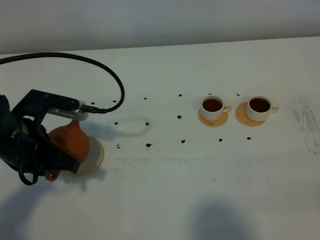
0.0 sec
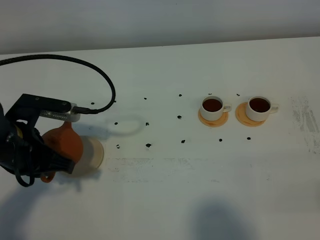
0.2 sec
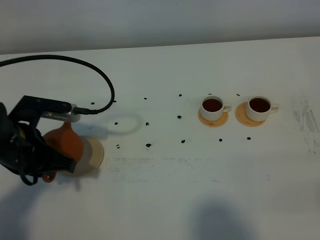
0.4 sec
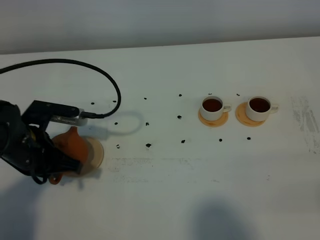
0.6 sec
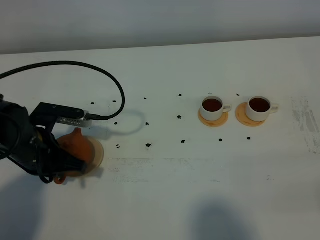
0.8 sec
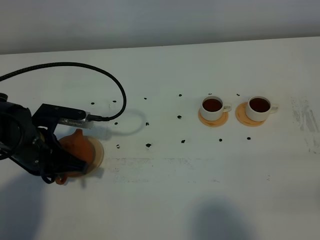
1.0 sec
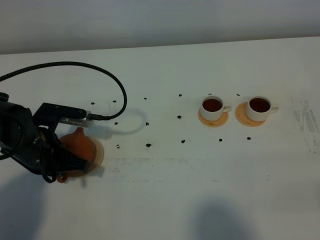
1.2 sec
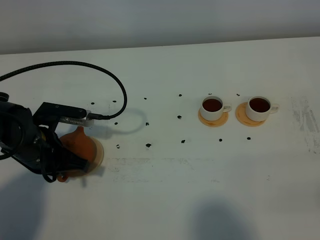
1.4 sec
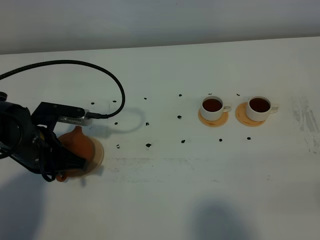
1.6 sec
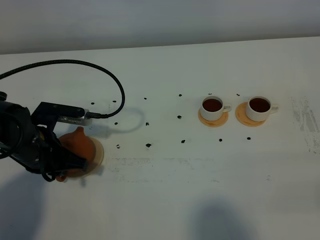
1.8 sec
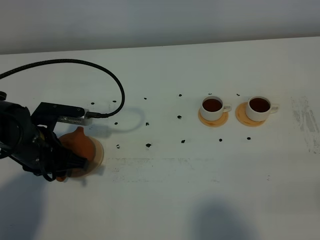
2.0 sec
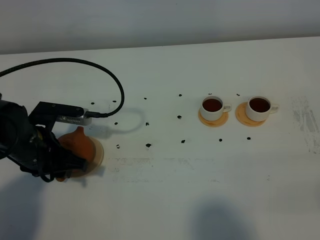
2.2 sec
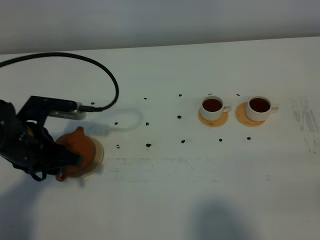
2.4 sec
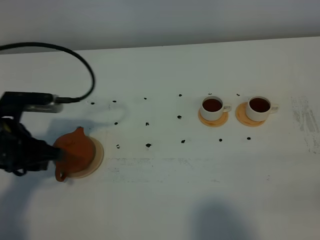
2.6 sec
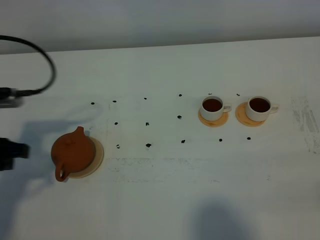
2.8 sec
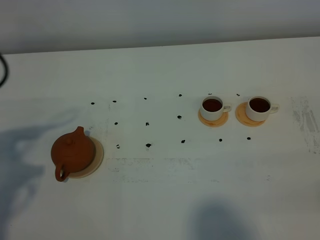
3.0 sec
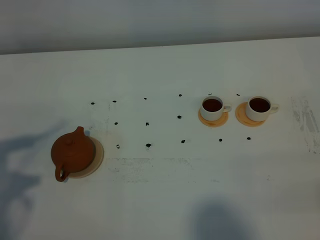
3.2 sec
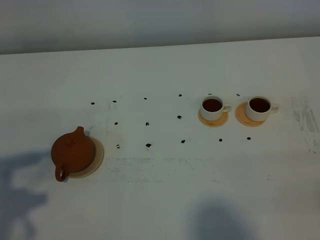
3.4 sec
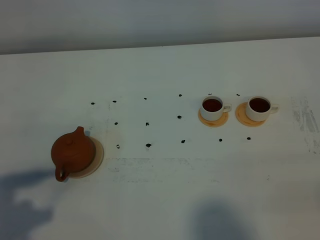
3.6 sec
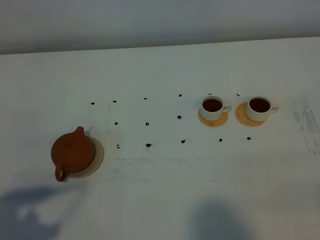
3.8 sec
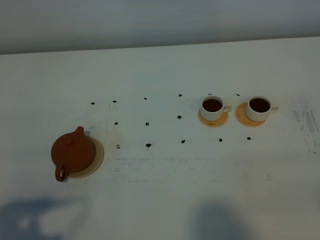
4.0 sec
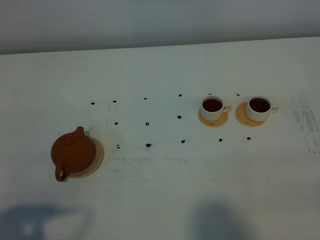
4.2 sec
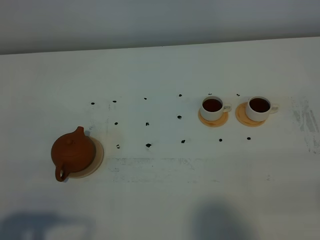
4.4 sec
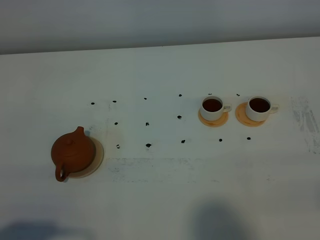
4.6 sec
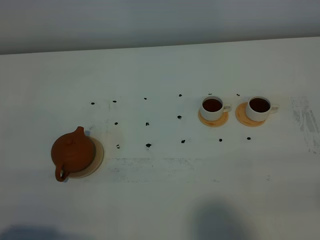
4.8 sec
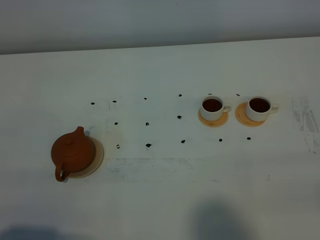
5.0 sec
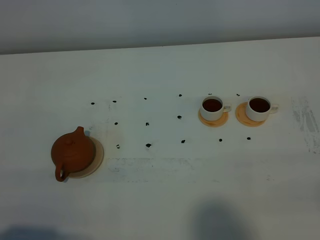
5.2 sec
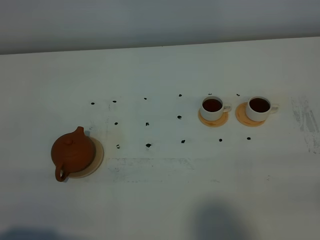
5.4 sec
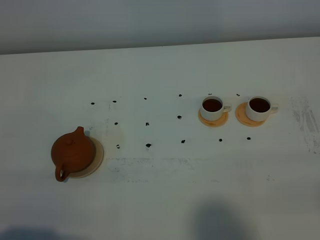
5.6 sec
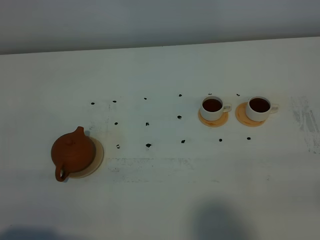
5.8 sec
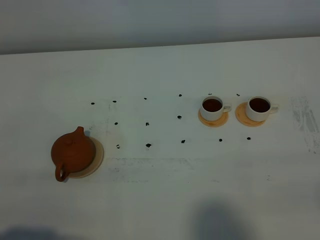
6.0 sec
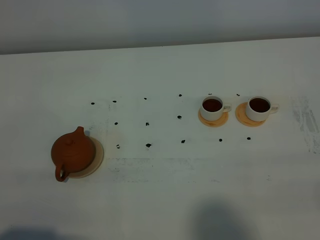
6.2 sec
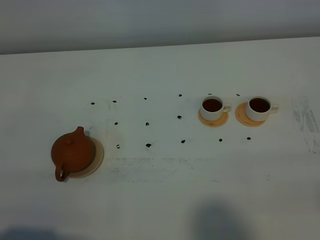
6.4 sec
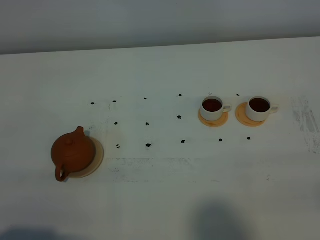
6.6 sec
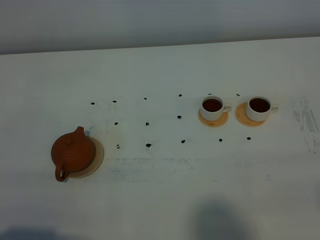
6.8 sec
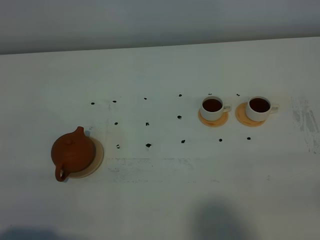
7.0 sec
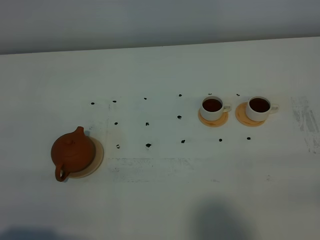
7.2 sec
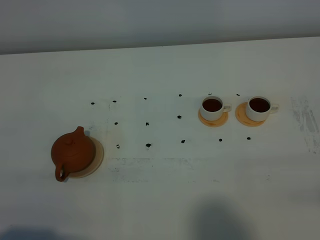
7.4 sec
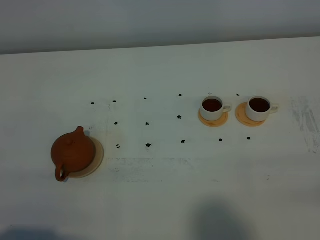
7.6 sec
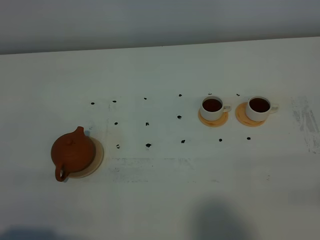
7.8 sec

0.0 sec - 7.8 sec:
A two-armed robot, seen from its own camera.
Task of the whole recording: grasp the brown teapot and pour the tea into the two white teacups one by one, put the brown teapot back in its original place.
0.0 sec - 1.6 sec: The left gripper is displaced downward by some 5 cm.
1.6 sec - 3.2 sec: The left gripper heads upward, backward and to the left, covering about 20 cm, and opens.
3.2 sec - 4.6 sec: The left gripper goes some 15 cm backward.
4.6 sec - 6.2 sec: Neither gripper changes place.

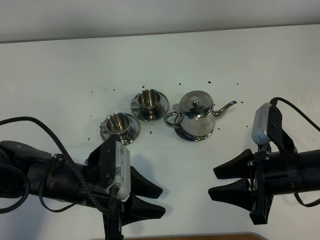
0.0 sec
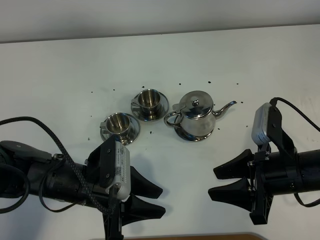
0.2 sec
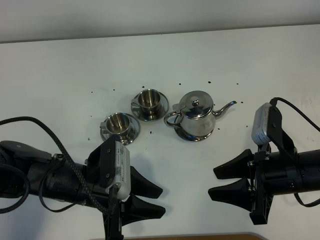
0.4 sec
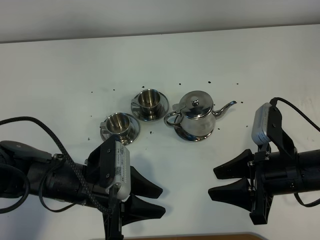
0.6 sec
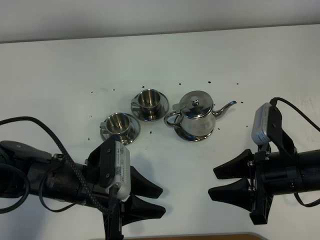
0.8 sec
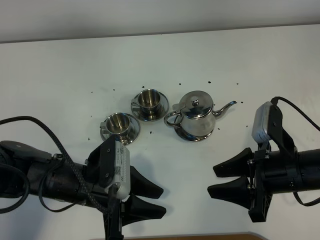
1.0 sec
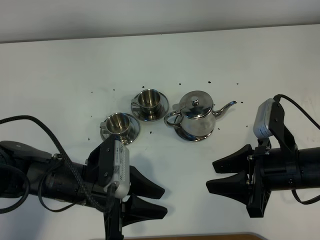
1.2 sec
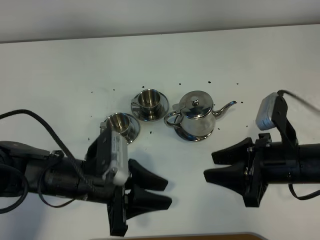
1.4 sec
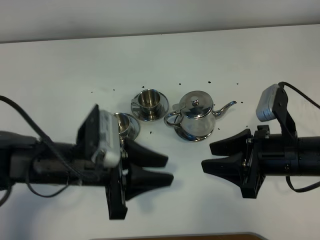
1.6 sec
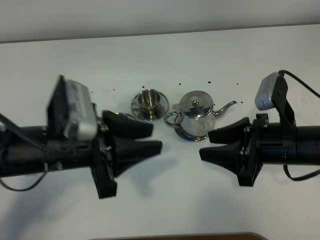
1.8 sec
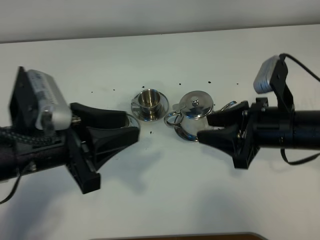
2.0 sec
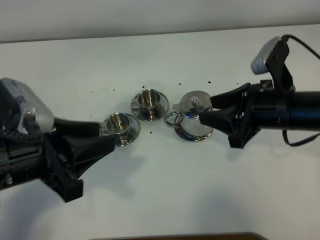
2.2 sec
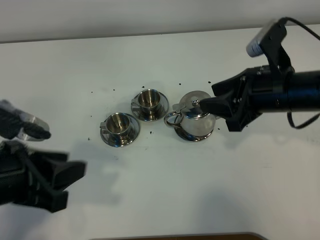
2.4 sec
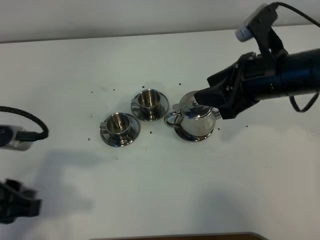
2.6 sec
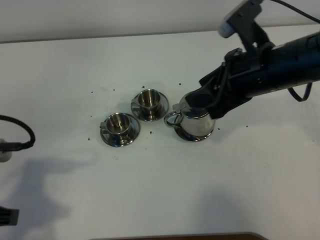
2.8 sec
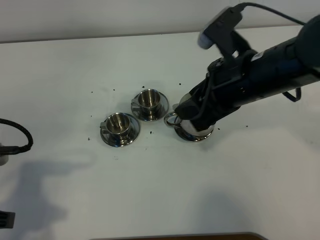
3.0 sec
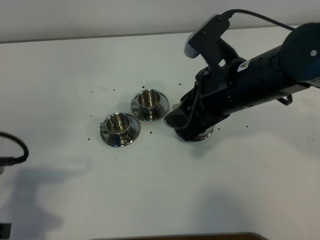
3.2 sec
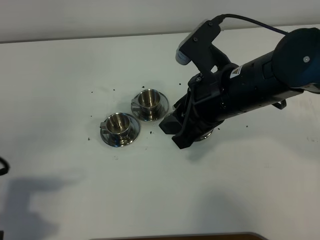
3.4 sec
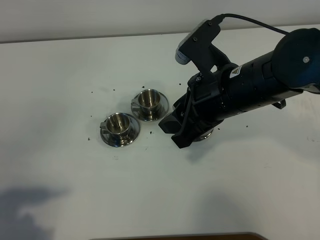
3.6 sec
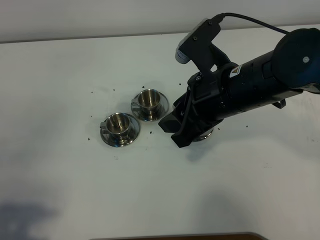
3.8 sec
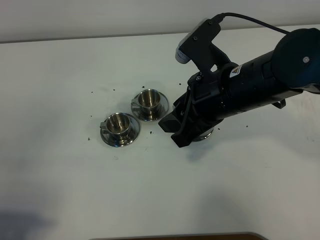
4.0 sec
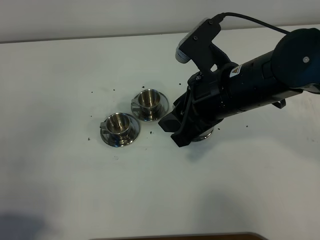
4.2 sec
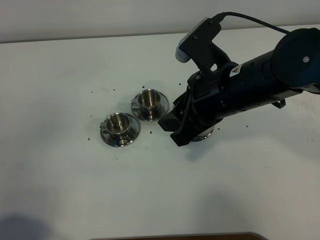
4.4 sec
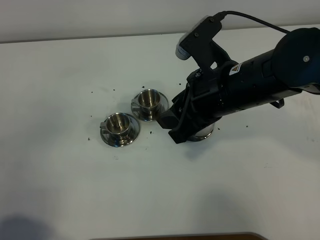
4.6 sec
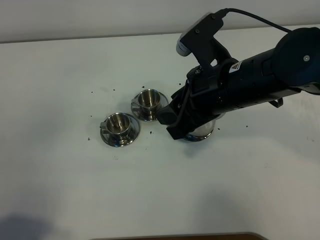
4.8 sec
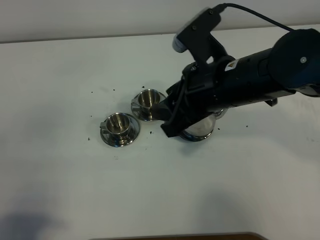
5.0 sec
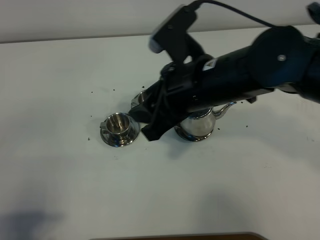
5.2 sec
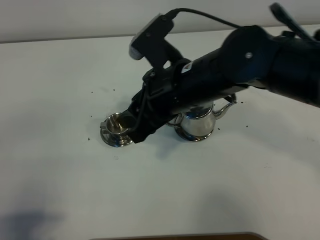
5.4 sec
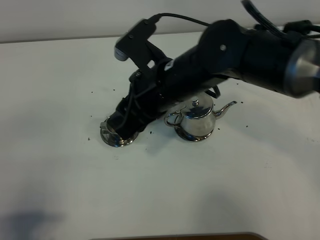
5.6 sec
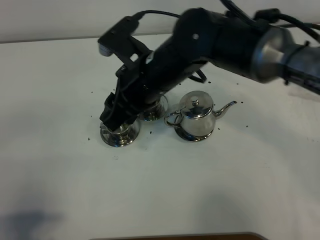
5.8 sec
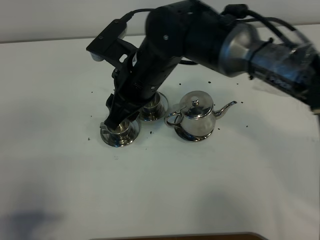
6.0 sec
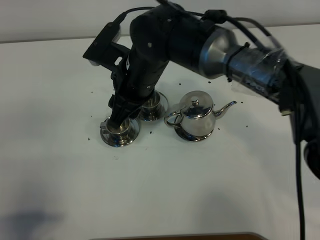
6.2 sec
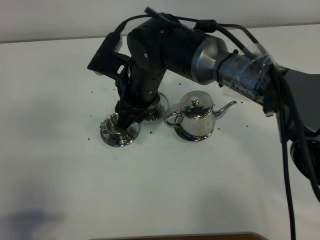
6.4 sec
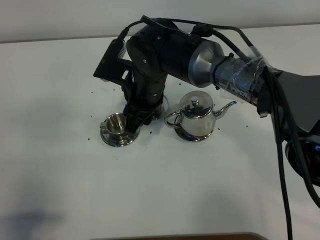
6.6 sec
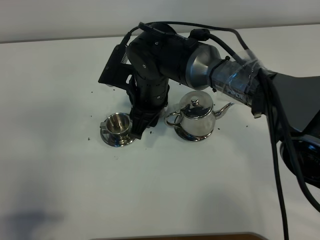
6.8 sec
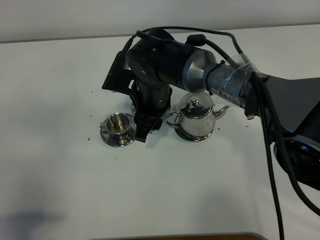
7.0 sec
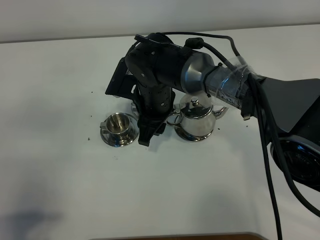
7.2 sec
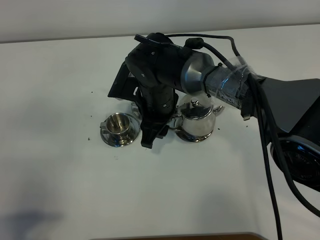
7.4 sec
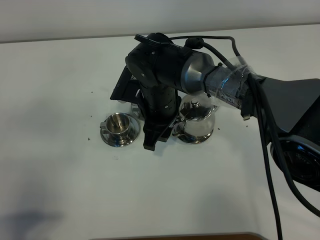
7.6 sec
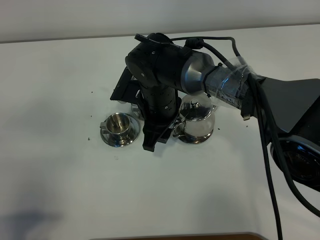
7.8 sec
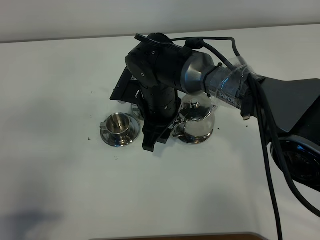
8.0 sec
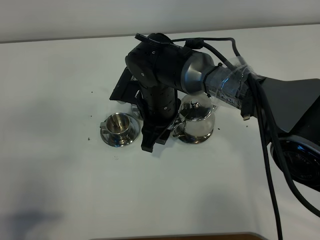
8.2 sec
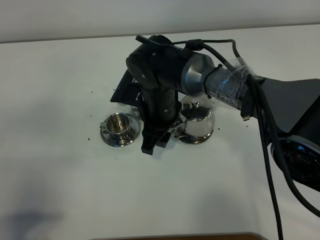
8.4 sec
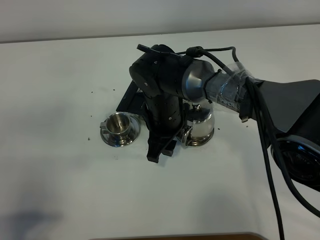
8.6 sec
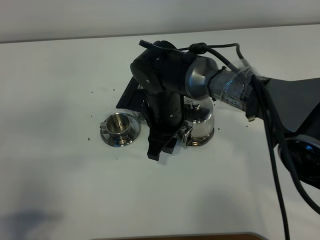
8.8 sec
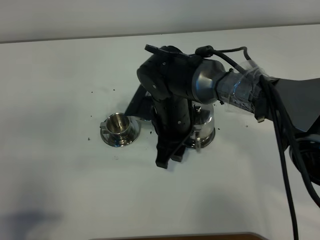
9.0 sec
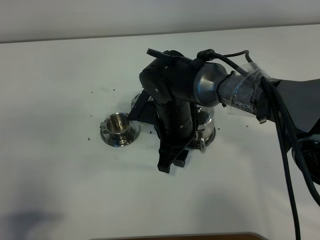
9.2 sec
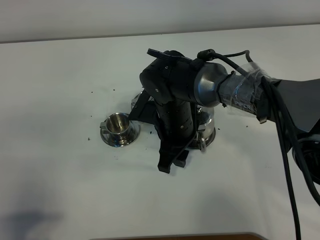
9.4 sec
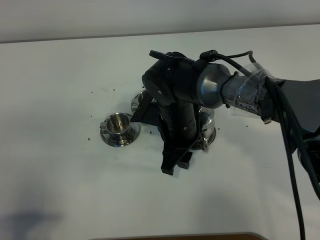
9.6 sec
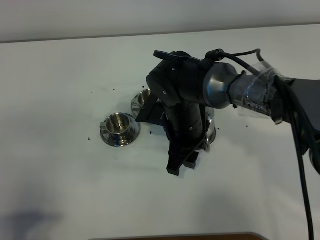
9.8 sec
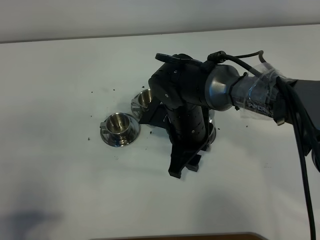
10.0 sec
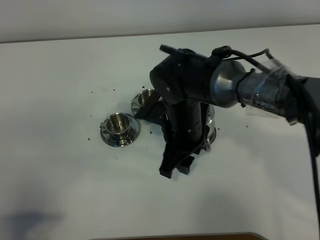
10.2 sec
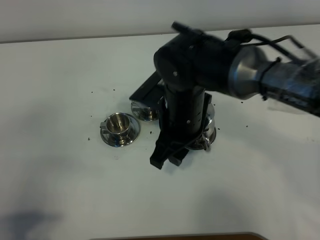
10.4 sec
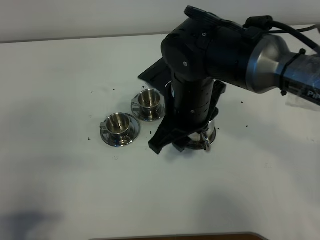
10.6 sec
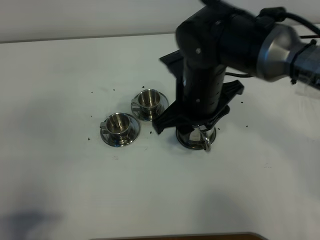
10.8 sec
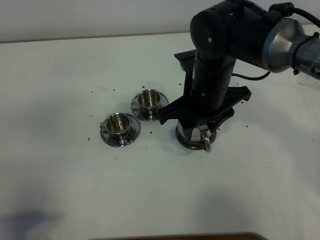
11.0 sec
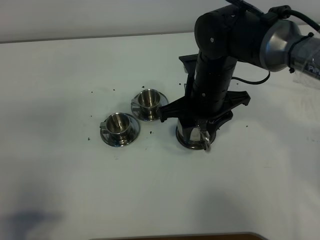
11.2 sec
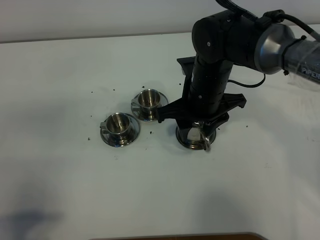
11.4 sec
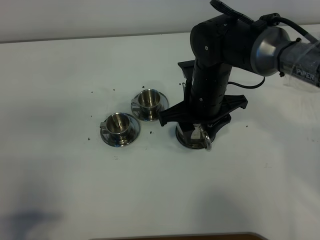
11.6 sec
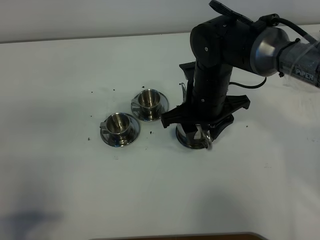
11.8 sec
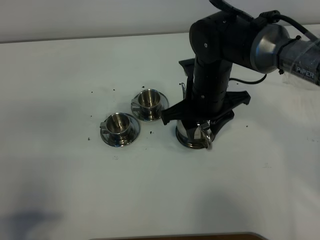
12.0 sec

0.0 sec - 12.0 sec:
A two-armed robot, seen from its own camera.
Task of the whole recording: grasp the stainless steel teapot and pour the tea into the two stainless steel teacups one by one, put the stainless steel teapot back in its original place.
0.0 sec - 1.6 sec: The left gripper travels upward by some 5 cm.
1.6 sec - 3.0 sec: The right gripper is displaced upward, to the left and forward by approximately 15 cm. The left gripper shifts roughly 15 cm to the left, backward and upward.
3.0 sec - 4.4 sec: The left gripper shifts about 10 cm backward.
4.4 sec - 6.0 sec: The right gripper goes roughly 15 cm to the left and forward.
6.0 sec - 7.6 sec: The right gripper is displaced downward by roughly 10 cm.
7.6 sec - 9.0 sec: There are only small adjustments of the grippers.
9.0 sec - 10.4 sec: The right gripper moves upward, about 5 cm.
10.4 sec - 12.0 sec: The right gripper travels forward by about 5 cm.

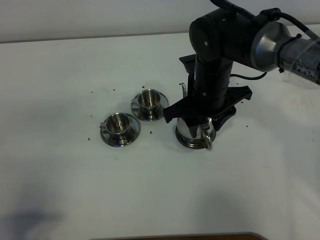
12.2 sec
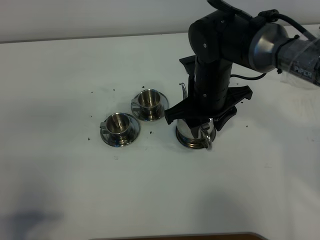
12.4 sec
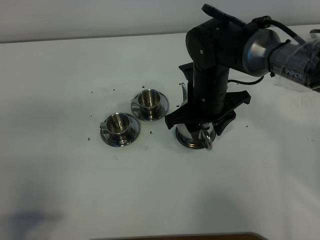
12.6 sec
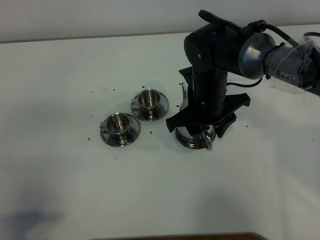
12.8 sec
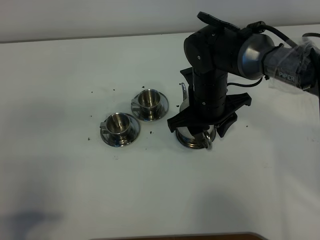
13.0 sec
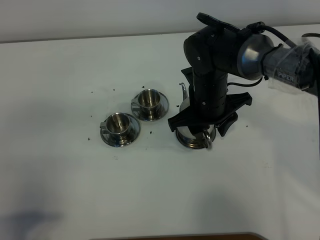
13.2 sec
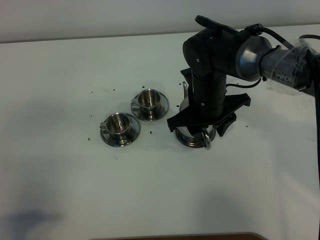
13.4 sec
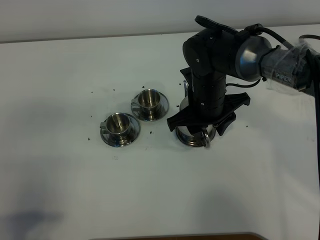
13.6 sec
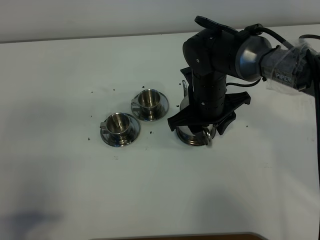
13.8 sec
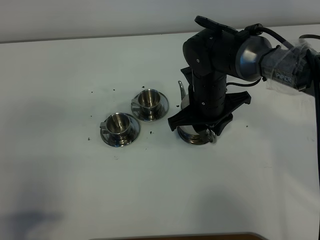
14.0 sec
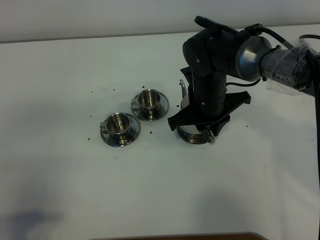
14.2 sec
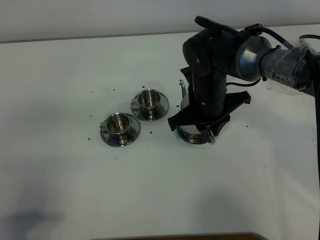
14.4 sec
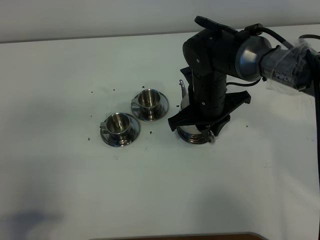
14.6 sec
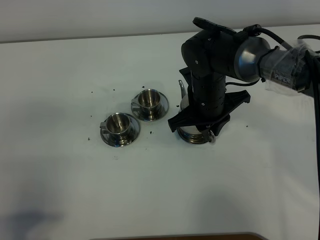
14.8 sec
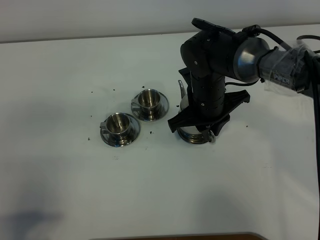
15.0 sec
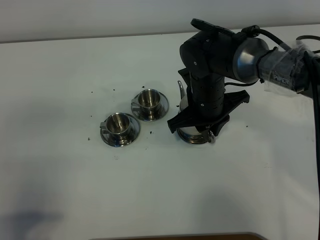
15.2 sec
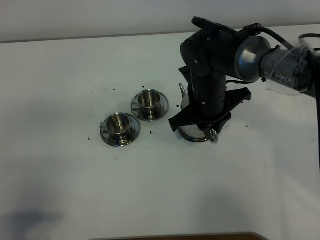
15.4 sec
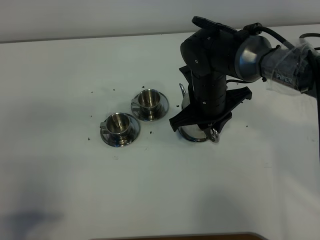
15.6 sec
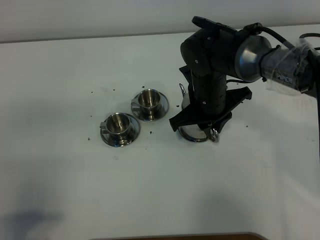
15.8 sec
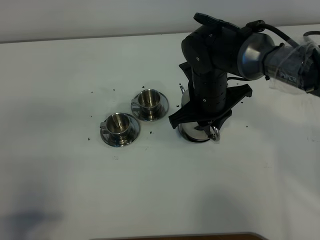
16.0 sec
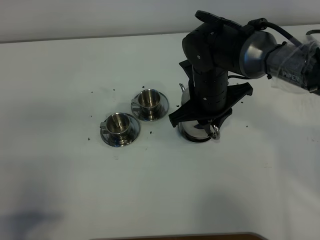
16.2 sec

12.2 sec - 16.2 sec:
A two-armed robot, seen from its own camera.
Task of the whole recording: grasp the stainless steel teapot and pour the tea into the two stainless steel teacups one by one, put the stainless steel teapot back in its original place.
12.2 sec - 13.6 sec: The grippers make only small movements.
13.6 sec - 14.8 sec: The right gripper closes.
14.8 sec - 16.2 sec: The grippers make only small movements.
